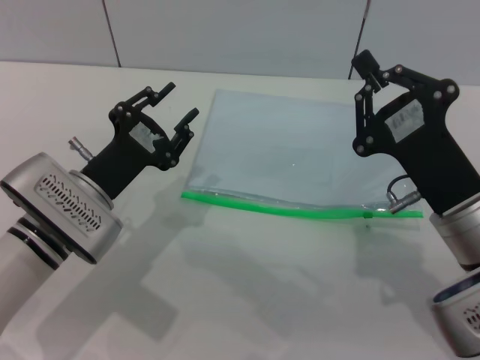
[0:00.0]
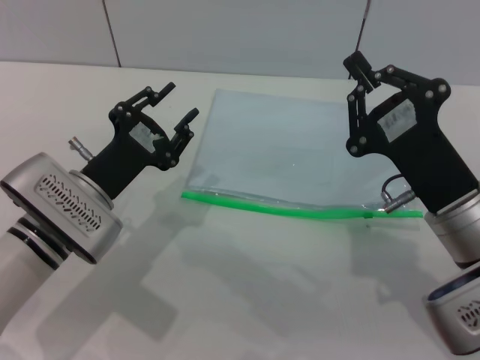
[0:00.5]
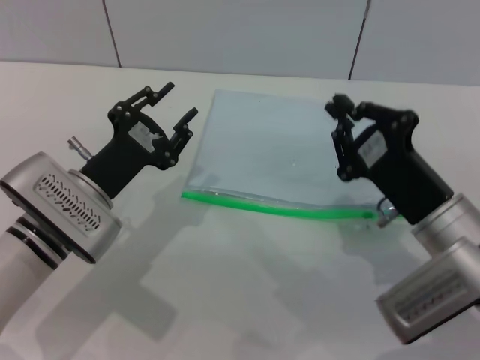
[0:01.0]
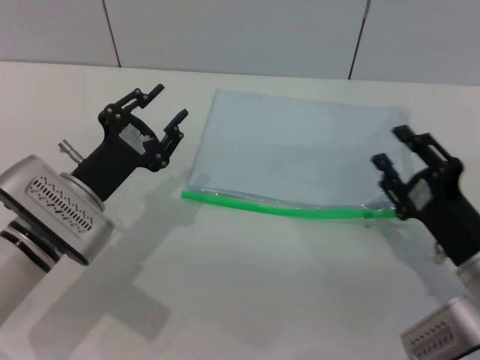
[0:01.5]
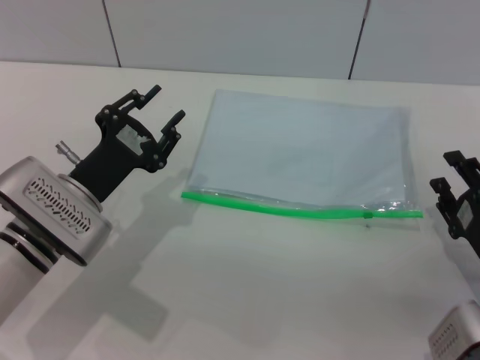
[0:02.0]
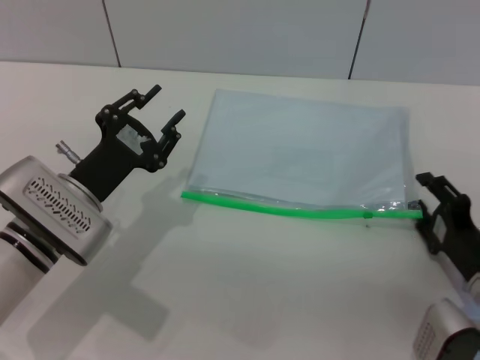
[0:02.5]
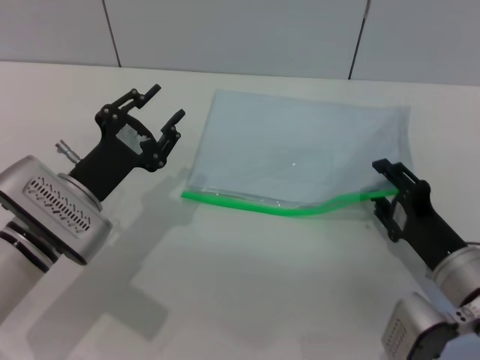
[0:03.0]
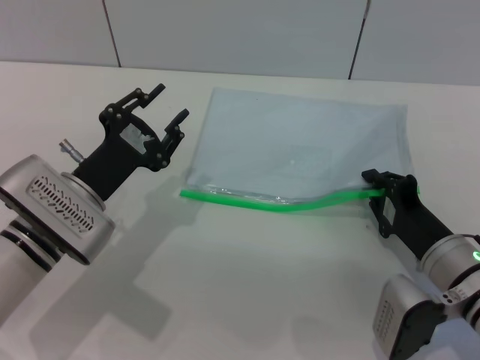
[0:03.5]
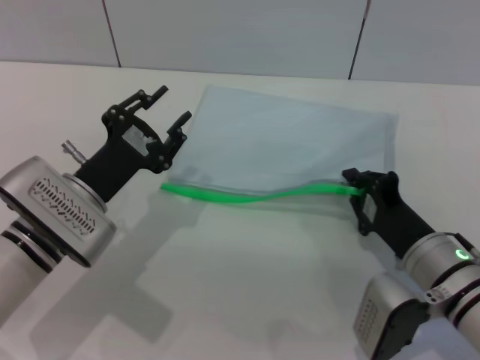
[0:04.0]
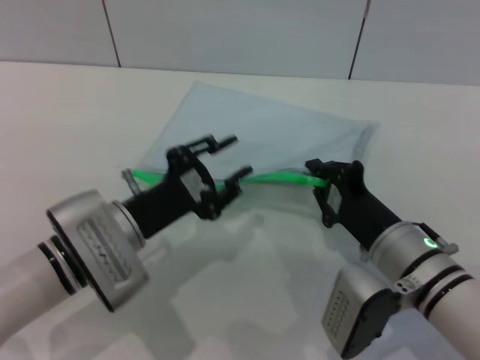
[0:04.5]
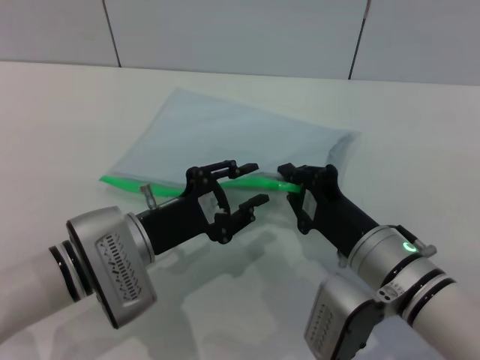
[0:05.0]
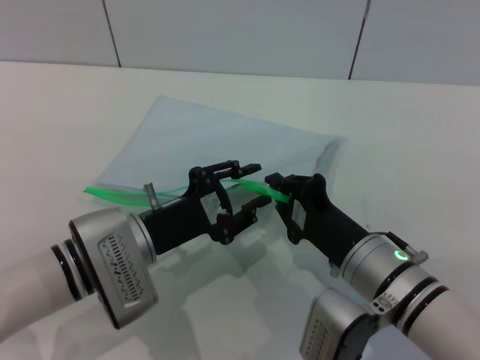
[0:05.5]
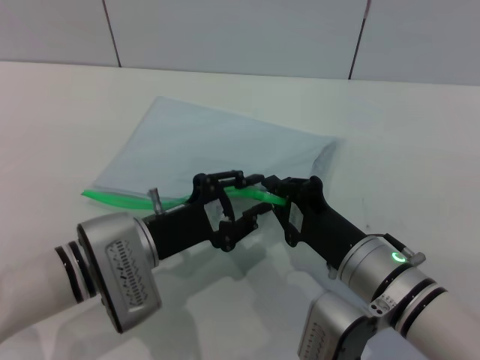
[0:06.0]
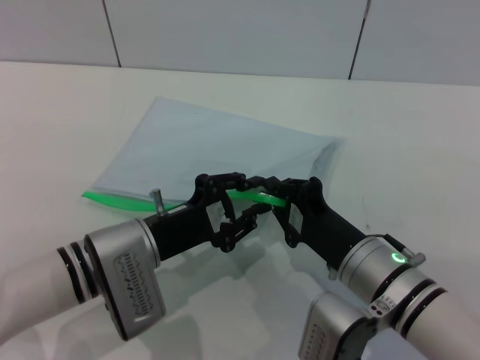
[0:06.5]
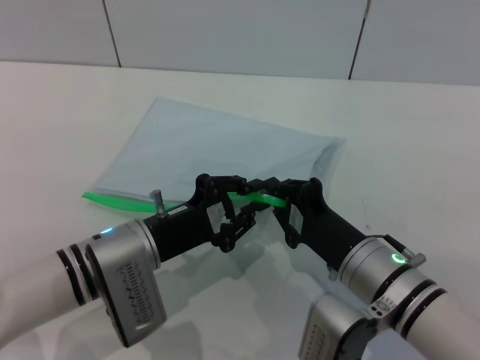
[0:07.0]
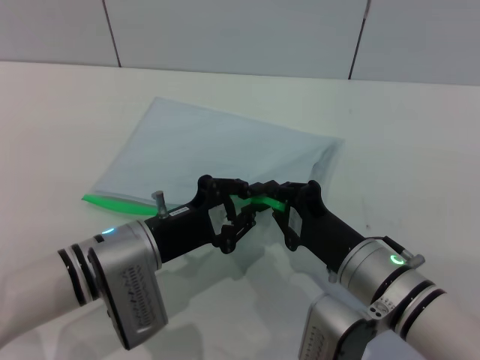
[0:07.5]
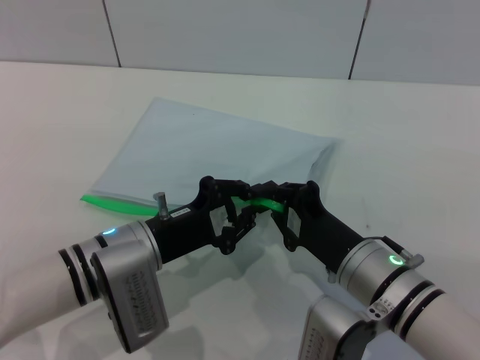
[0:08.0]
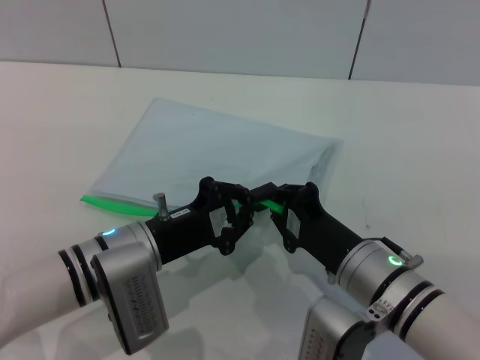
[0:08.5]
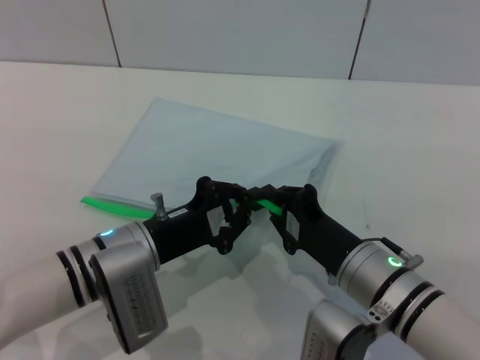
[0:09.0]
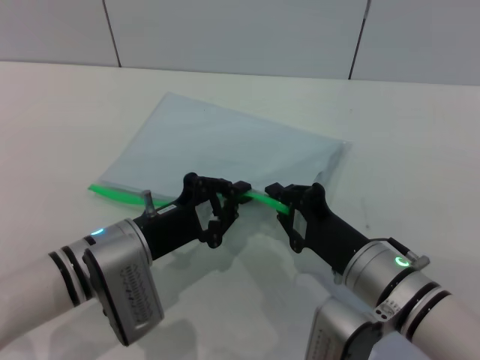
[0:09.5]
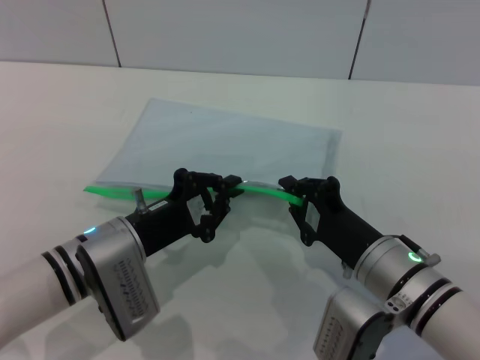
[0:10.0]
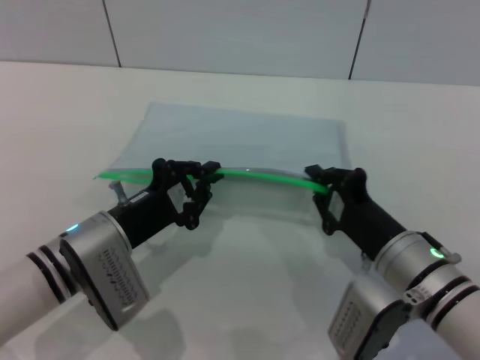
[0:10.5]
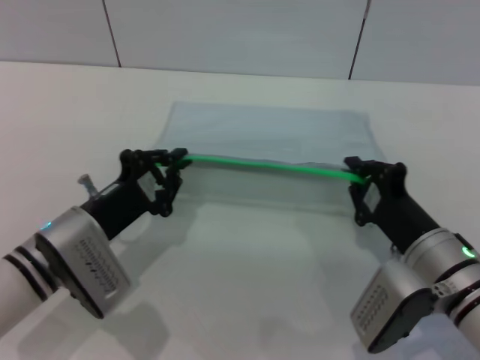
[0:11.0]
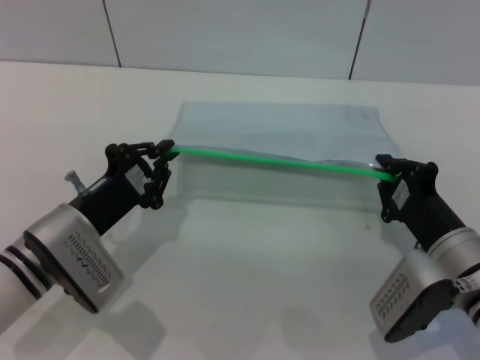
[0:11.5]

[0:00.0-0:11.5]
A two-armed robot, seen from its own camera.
Step, 0:00.0 to 0:04.0: Pick up the transparent plastic bag with the right gripper.
0:00.0 to 0:02.0: The right gripper moves downward and to the right, approximately 10 cm, and opens.
0:02.0 to 0:04.0: The right gripper moves to the left, roughly 10 cm, and closes.
0:04.0 to 0:06.0: The right gripper travels to the left by about 5 cm.
0:06.0 to 0:07.5: The left gripper closes up.
0:07.5 to 0:09.5: Both grippers stay about where they are.
0:09.5 to 0:11.5: The right gripper travels to the right by about 10 cm.

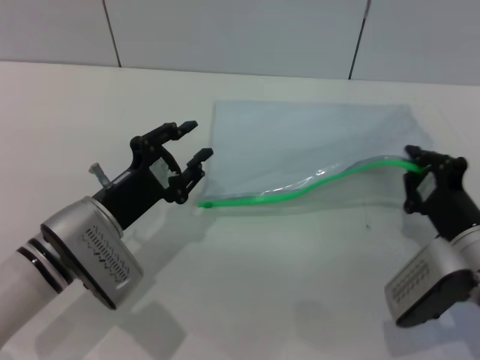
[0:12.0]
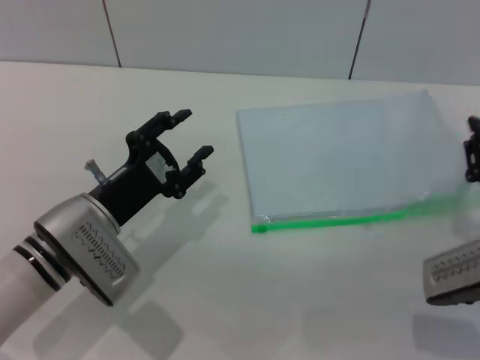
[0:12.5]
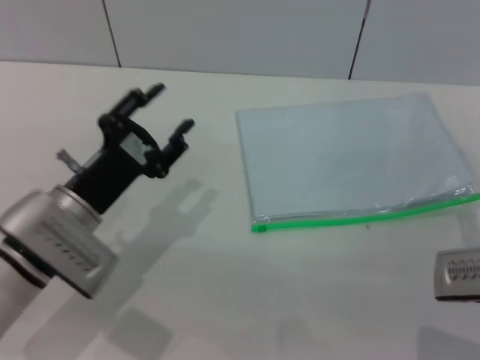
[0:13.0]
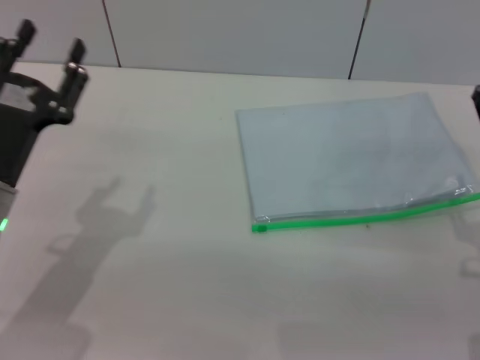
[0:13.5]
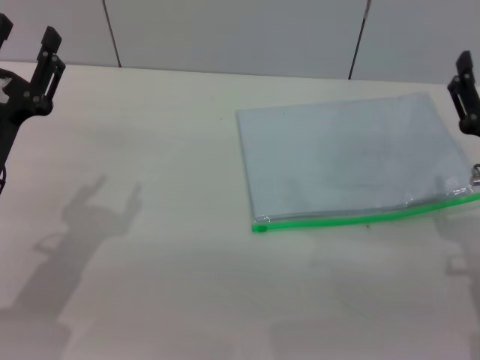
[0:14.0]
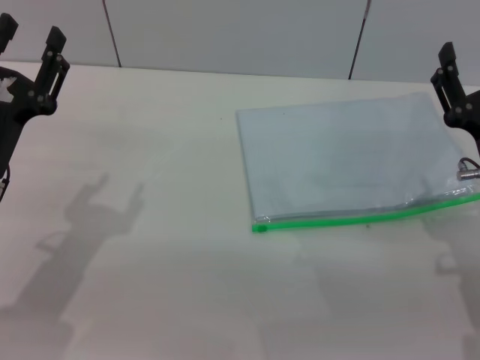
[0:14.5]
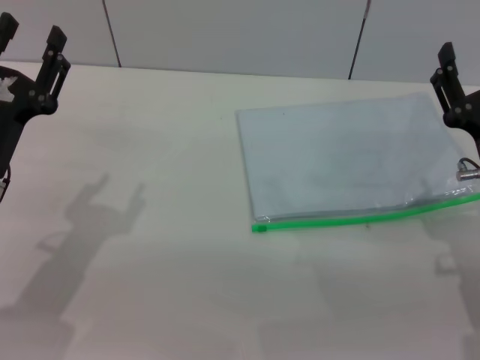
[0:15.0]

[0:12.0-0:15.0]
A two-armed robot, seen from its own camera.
Step, 0:12.5 to 0:13.5: Place the transparent plastic bag.
0:12.0 to 0:13.5: The right gripper is displaced upward by roughly 5 cm, and opens up; the left gripper heads to the left, covering some 5 cm, and opens up.
0:13.5 to 0:15.0: The grippers make only small movements.
